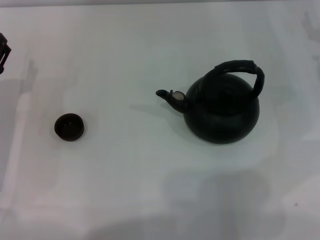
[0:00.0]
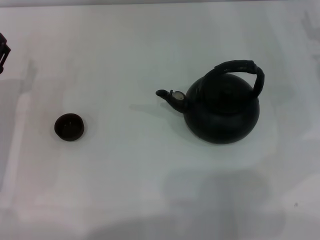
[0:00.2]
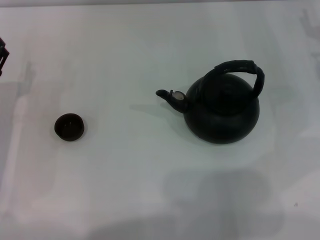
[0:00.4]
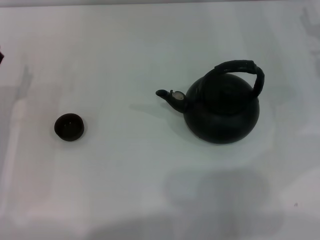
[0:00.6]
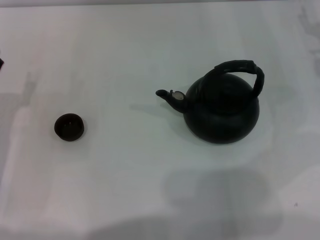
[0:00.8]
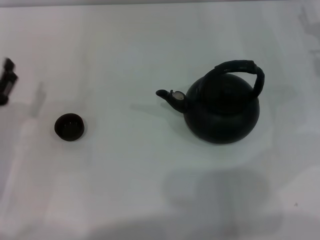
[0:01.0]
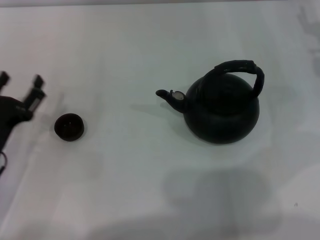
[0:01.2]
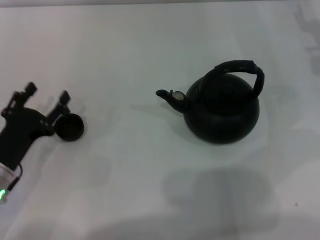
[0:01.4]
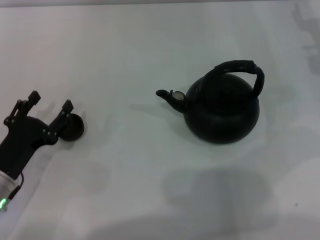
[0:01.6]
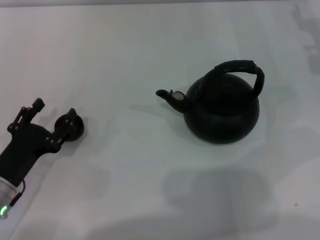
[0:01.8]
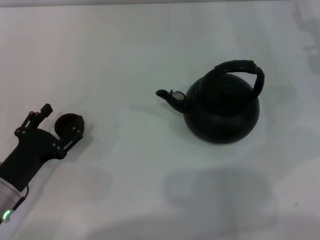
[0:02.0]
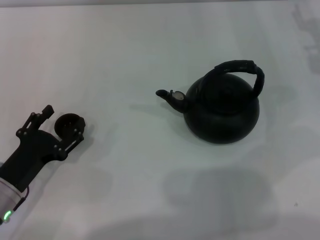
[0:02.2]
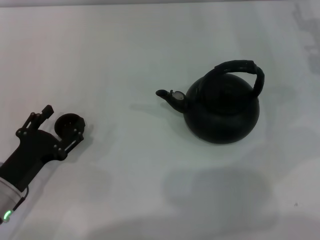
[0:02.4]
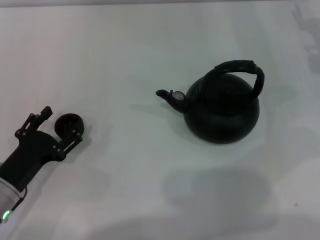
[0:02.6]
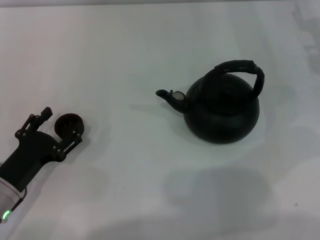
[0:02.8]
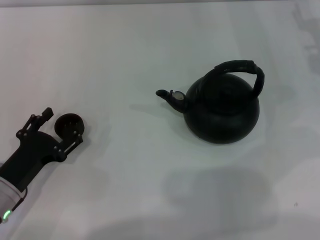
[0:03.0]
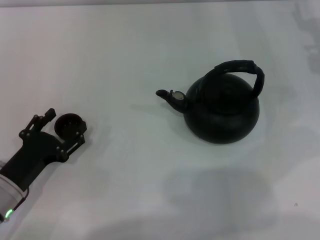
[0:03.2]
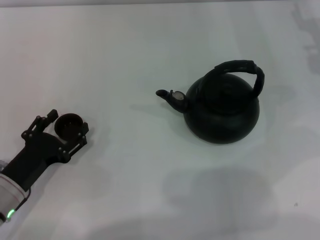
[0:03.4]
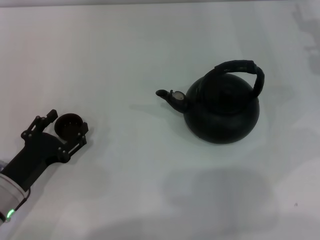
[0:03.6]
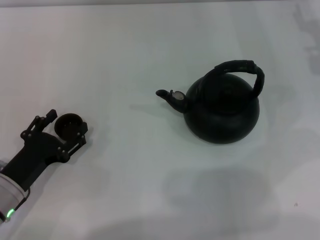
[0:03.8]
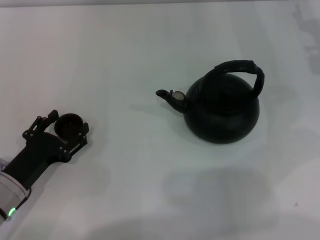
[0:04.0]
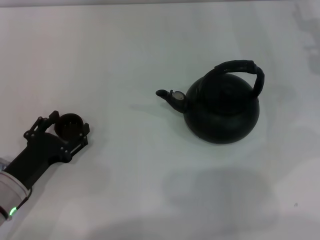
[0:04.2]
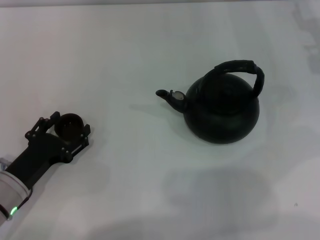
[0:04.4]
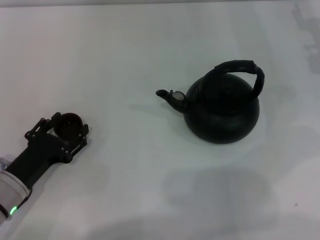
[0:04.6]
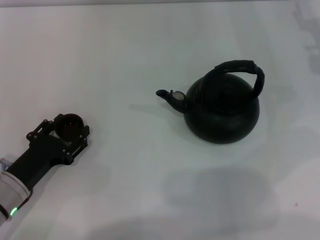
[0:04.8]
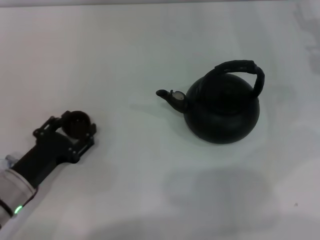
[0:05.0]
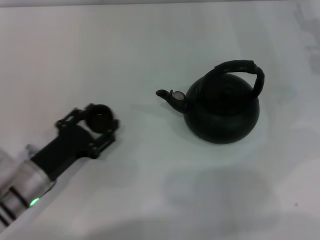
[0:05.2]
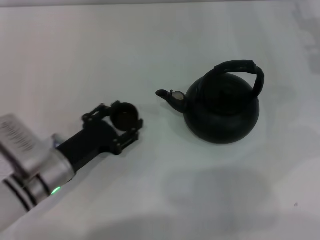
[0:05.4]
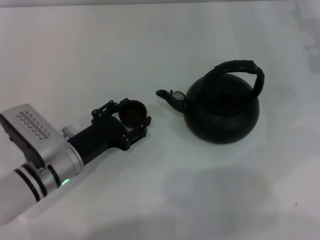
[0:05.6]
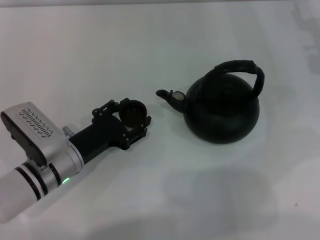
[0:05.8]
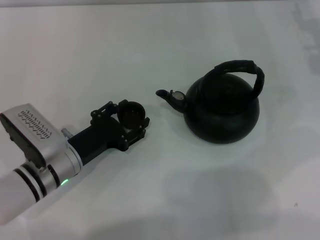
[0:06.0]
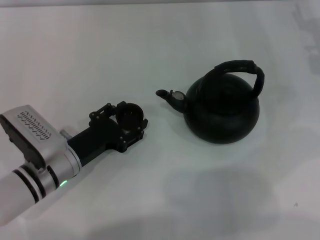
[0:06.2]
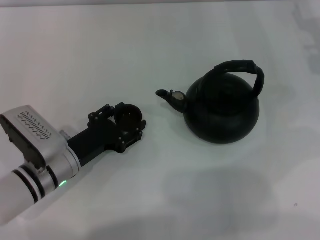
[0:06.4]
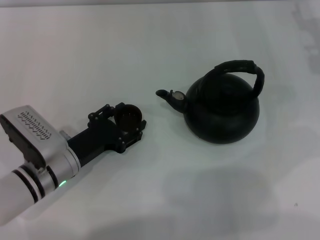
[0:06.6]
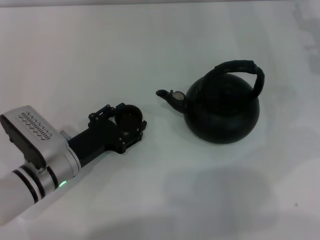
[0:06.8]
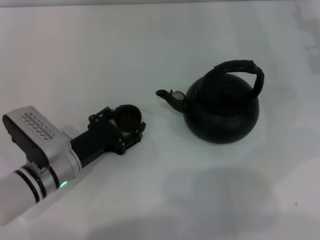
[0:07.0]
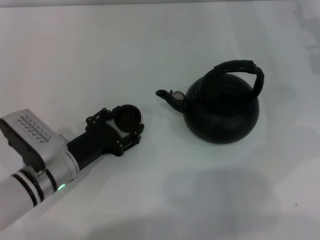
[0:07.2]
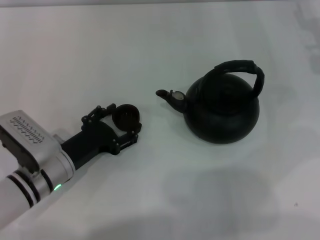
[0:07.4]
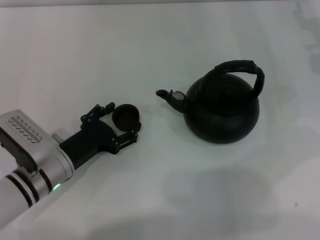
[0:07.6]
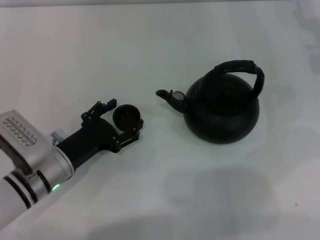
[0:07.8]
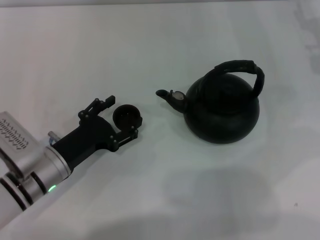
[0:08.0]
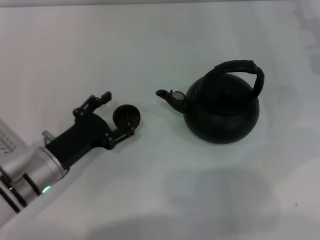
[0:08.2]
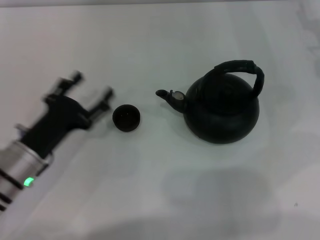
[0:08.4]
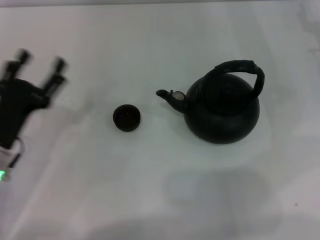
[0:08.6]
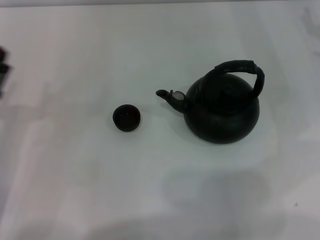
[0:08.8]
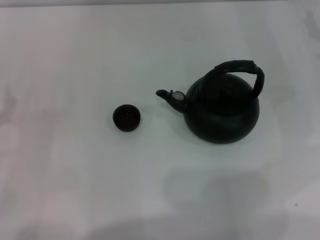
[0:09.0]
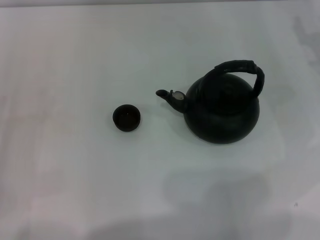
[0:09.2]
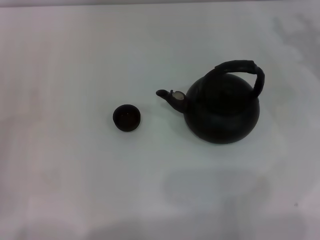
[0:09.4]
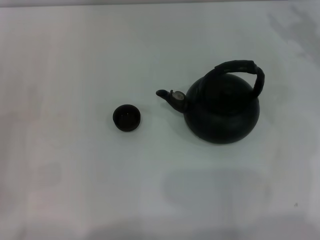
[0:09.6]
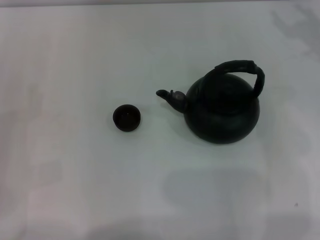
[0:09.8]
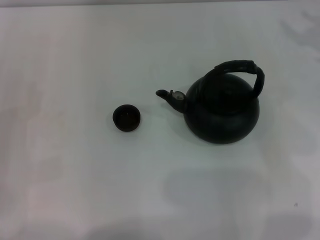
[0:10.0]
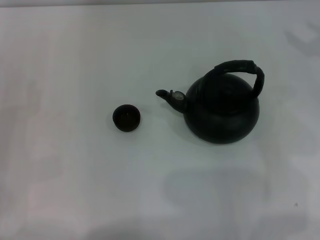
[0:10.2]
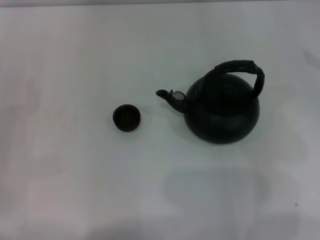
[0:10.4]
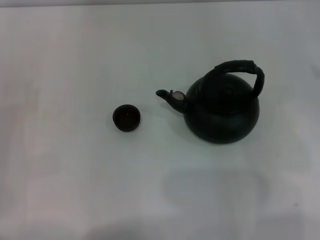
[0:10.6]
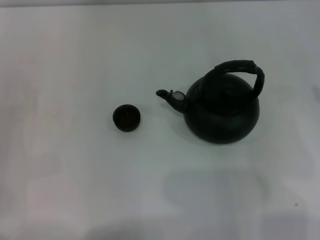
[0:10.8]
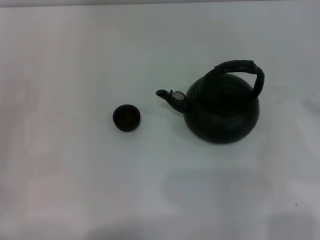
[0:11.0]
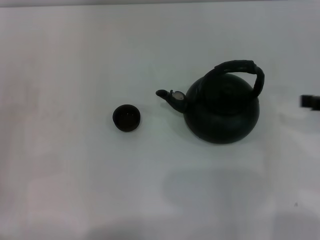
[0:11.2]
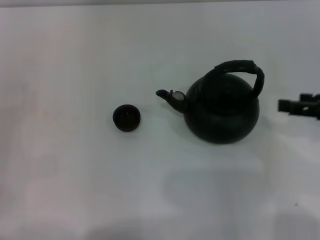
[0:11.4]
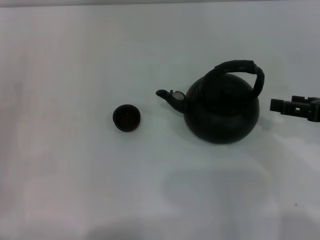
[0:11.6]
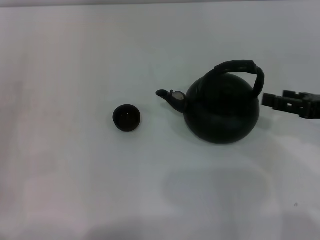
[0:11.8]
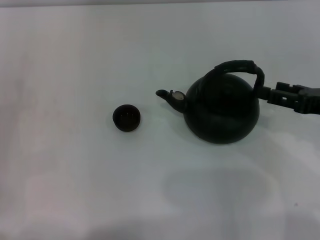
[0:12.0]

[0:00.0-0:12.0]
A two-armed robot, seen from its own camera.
Task of the whole recording: Grasp the handle of the teapot with one hand and pour tea into the teacup.
Step, 0:00.0 to 0:05.0: Pick up the teacup with the left gripper.
Step, 0:05.2 to 0:08.2: Place the teacup in the center of view with the left gripper.
0:00.0 to 0:01.6: The left gripper heads backward, covering roughly 10 cm.
0:01.6 to 0:03.0: The grippers make only small movements.
0:03.0 to 0:04.4: The left gripper closes its fingers.
0:04.4 to 0:06.0: The left gripper goes roughly 10 cm to the right and forward.
0:06.0 to 0:07.6: The left gripper opens its fingers.
0:07.6 to 0:09.0: The left gripper heads to the left, covering approximately 10 cm.
0:10.4 to 0:12.0: The right gripper is displaced downward, to the left and backward by some 15 cm.

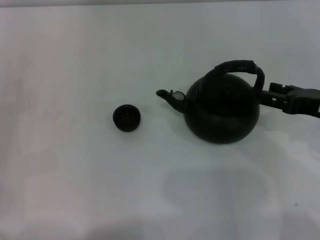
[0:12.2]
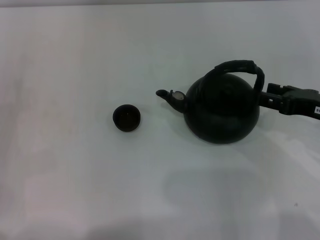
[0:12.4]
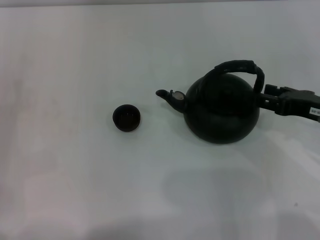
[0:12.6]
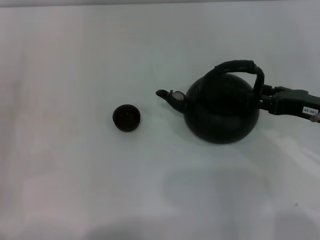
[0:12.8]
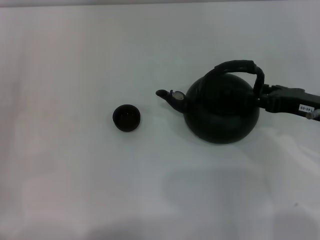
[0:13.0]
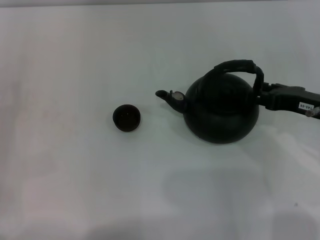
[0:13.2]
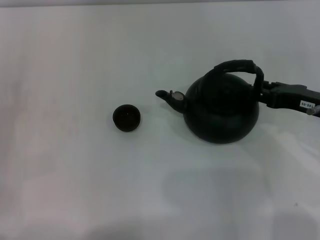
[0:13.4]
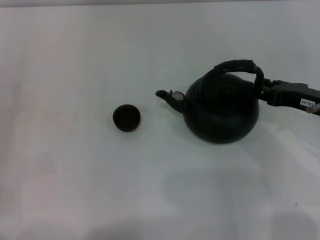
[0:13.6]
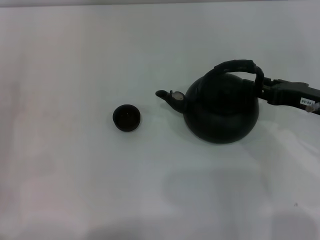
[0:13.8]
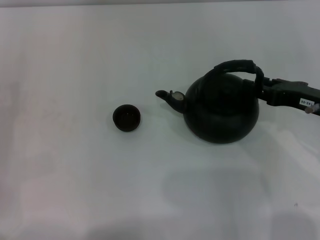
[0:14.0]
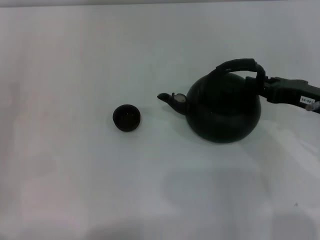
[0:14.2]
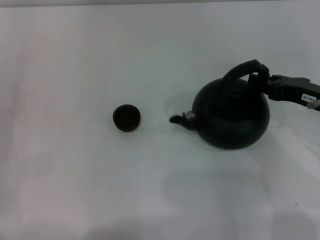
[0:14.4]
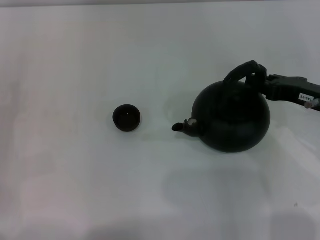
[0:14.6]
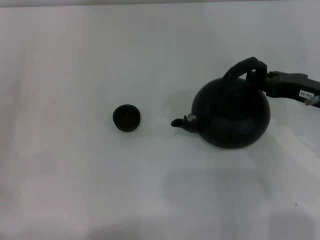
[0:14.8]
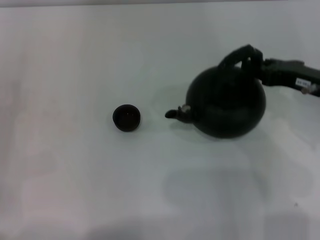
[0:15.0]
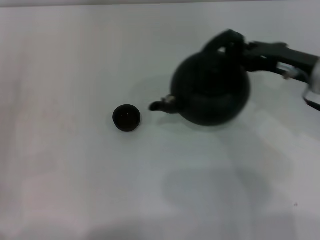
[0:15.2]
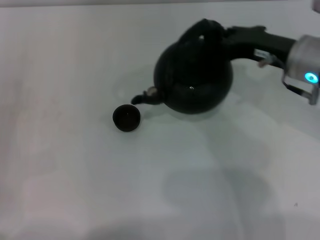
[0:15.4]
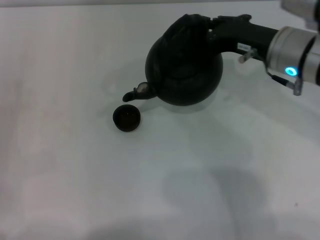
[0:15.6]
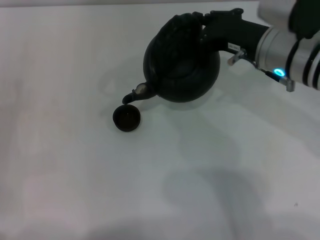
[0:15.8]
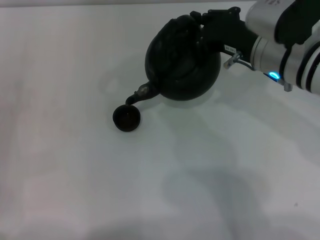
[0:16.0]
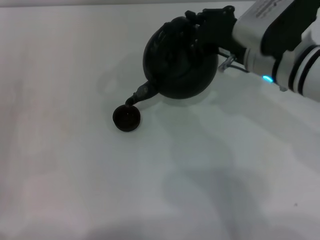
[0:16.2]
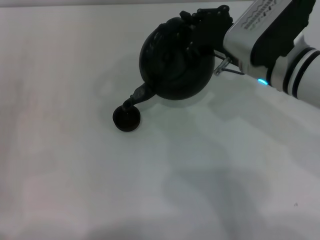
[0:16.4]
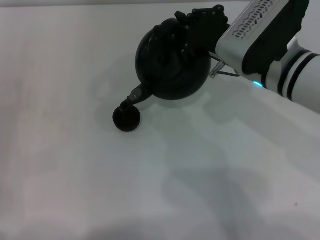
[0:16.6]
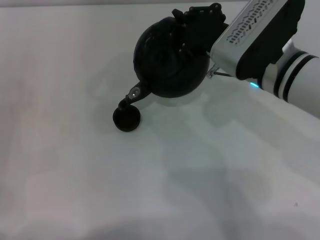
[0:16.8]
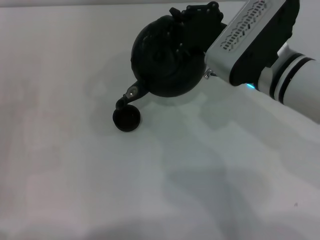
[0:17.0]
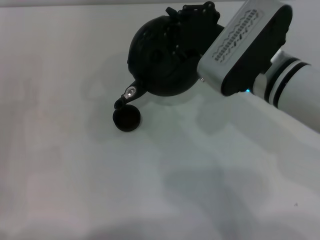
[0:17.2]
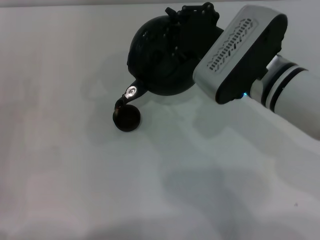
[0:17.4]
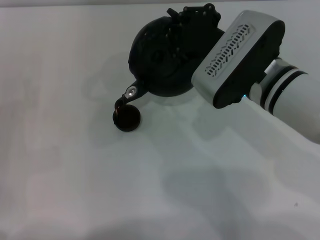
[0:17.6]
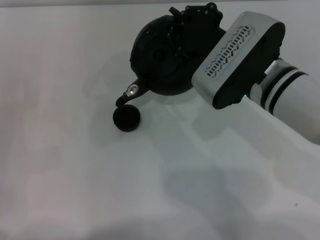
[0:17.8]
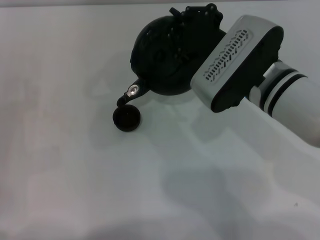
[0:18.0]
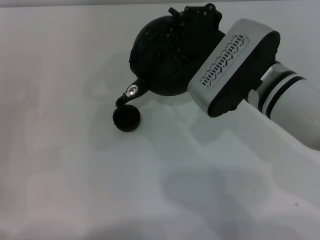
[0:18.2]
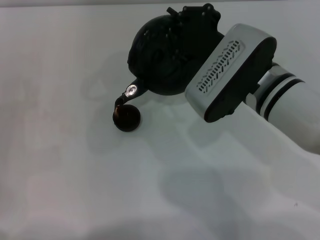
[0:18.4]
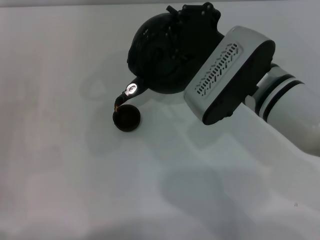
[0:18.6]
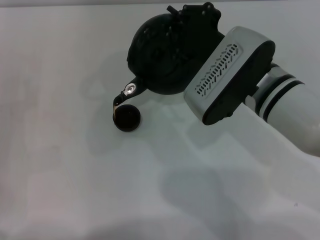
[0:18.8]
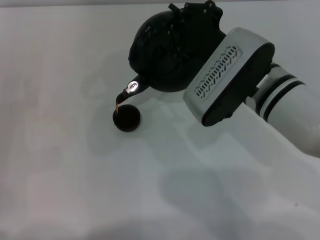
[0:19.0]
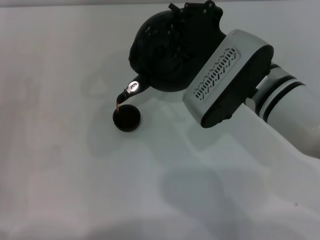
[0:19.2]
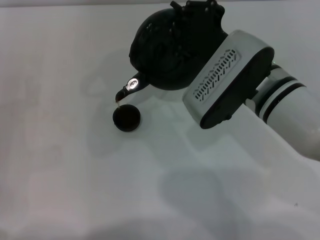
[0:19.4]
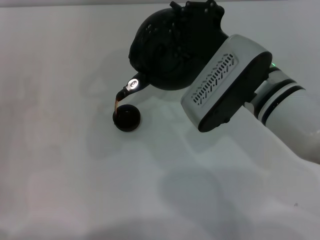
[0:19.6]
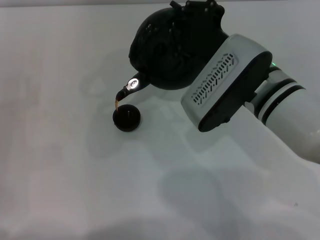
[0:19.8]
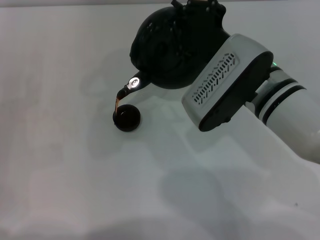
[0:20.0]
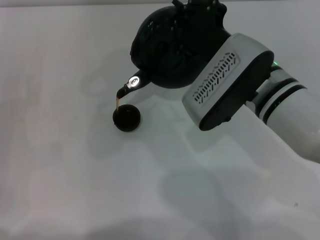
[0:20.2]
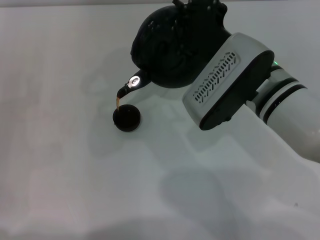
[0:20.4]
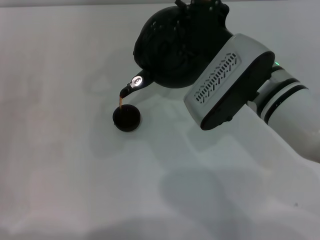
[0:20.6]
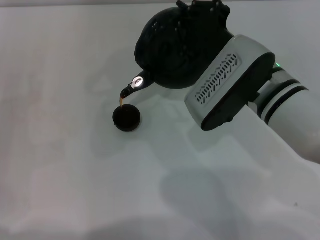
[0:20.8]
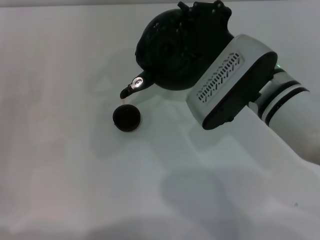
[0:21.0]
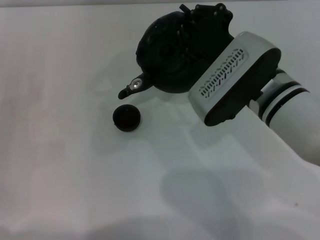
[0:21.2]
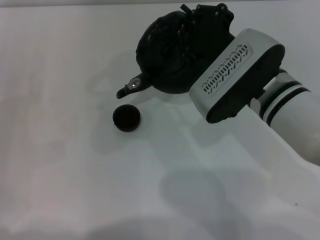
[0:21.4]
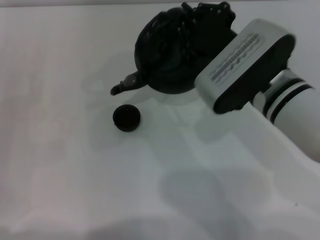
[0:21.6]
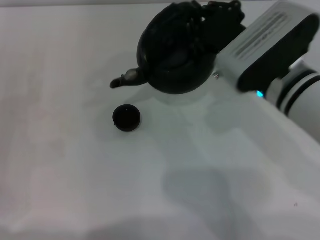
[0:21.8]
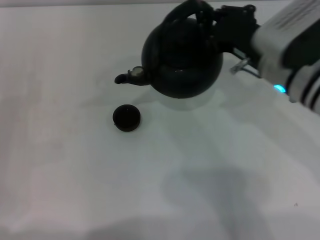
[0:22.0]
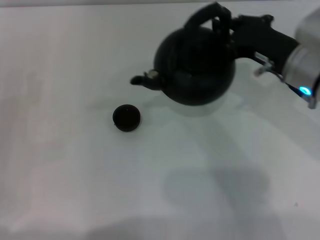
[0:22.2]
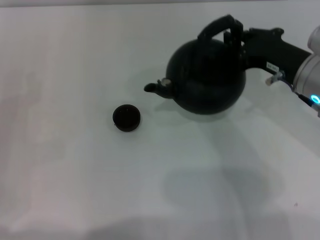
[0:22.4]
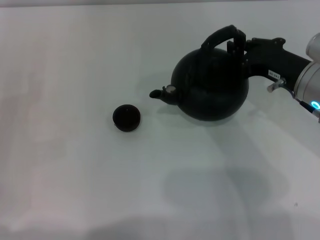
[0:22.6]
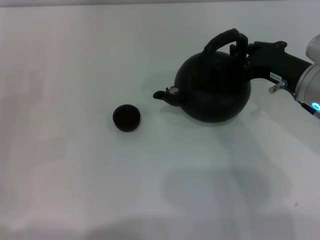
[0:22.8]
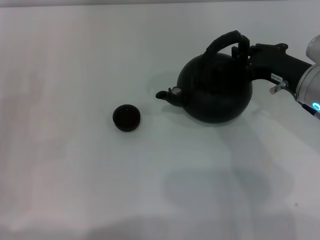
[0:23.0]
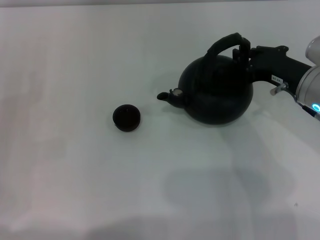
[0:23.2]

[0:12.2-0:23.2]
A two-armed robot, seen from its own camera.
Task of the whole recording: Grasp the handle of the teapot with one hand and pour tea into the teacup.
Step, 0:12.2 to 0:14.8: Pick up the teapot with the right gripper.
Step, 0:15.0 to 0:21.4: Pour tea into the teacup with the right gripper.
0:12.2 to 0:13.8: The grippers move only a little.
0:13.8 to 0:15.4: The right gripper heads to the left and forward, covering about 10 cm, and closes.
0:15.4 to 0:17.0: The right gripper travels to the left by some 5 cm.
0:17.0 to 0:18.4: The grippers move only a little.
0:18.4 to 0:21.6: The grippers stay close to where they were, moving slightly.
0:21.6 to 0:23.2: The right gripper goes roughly 10 cm to the right.
